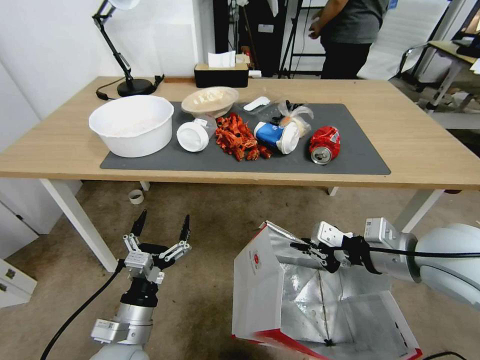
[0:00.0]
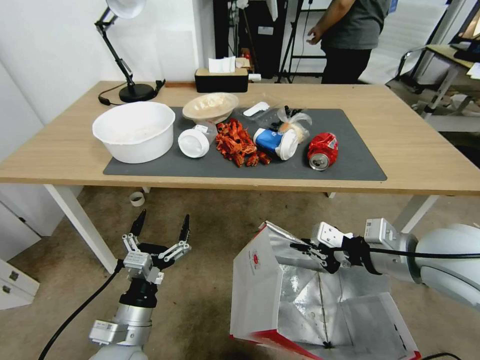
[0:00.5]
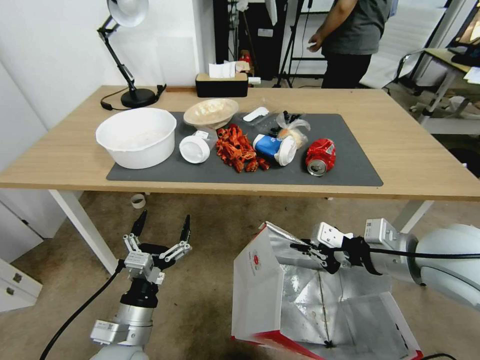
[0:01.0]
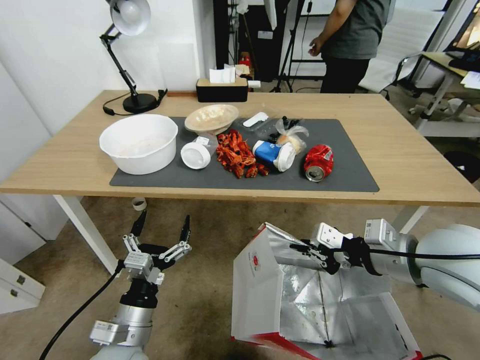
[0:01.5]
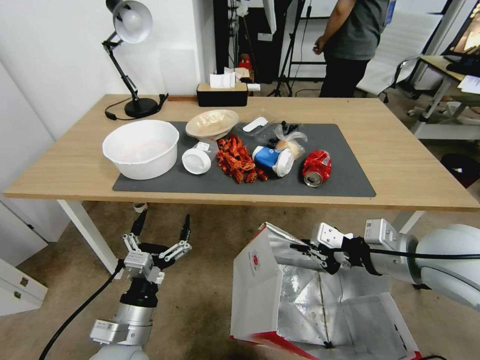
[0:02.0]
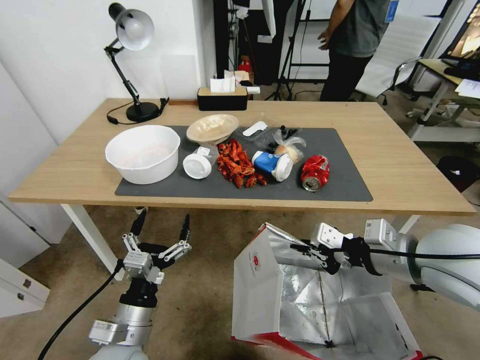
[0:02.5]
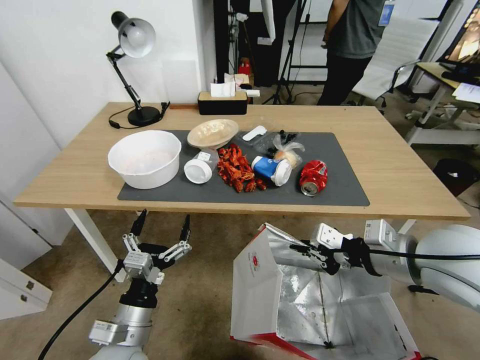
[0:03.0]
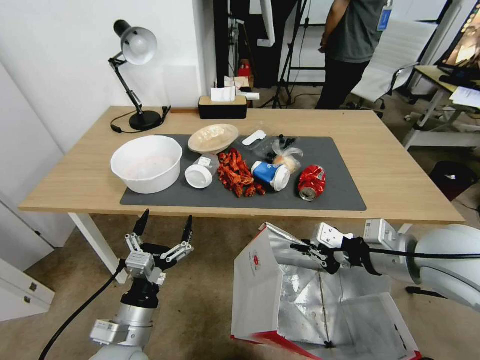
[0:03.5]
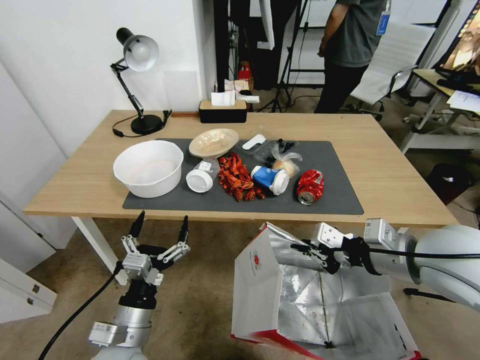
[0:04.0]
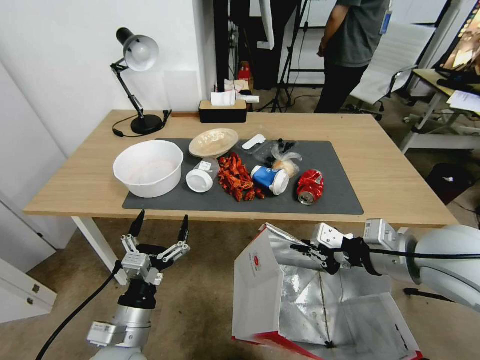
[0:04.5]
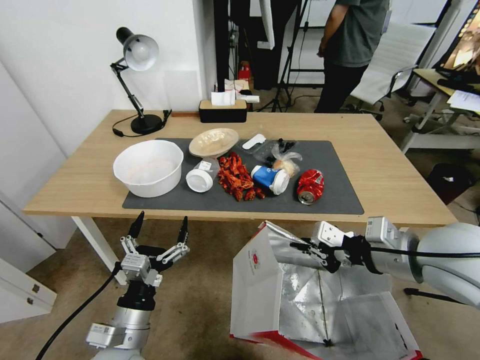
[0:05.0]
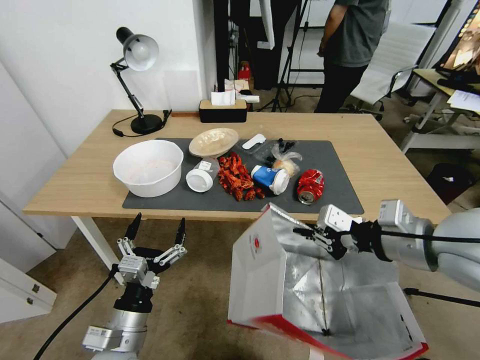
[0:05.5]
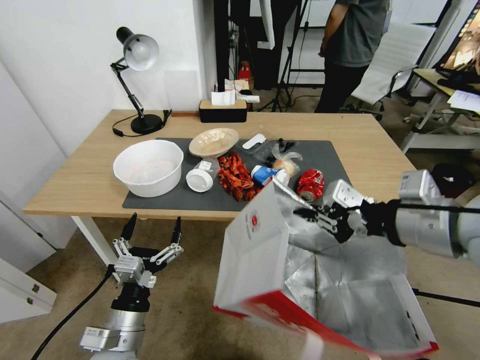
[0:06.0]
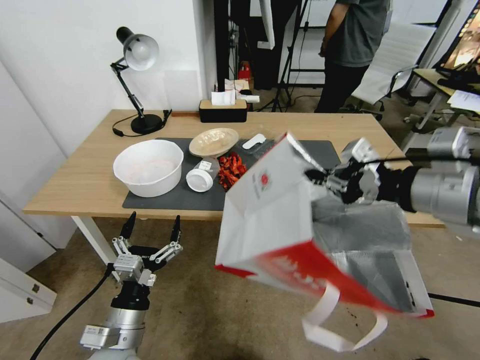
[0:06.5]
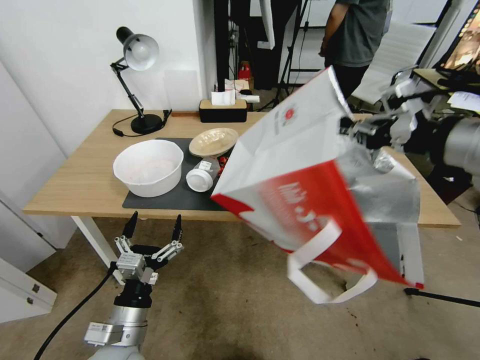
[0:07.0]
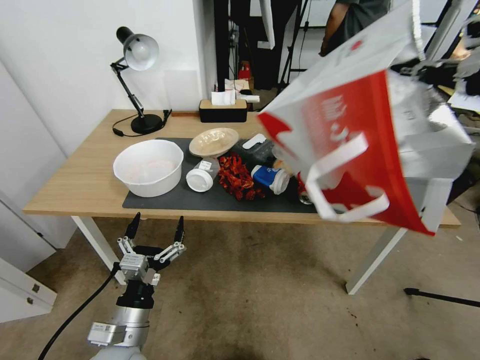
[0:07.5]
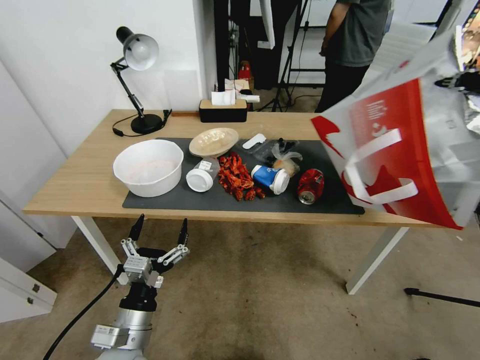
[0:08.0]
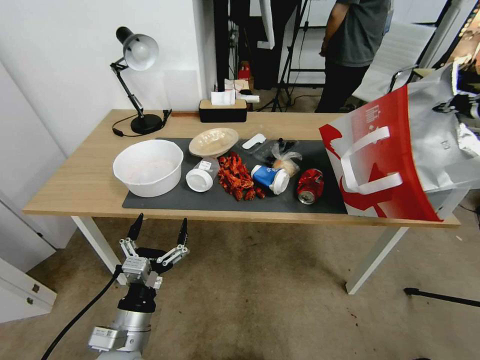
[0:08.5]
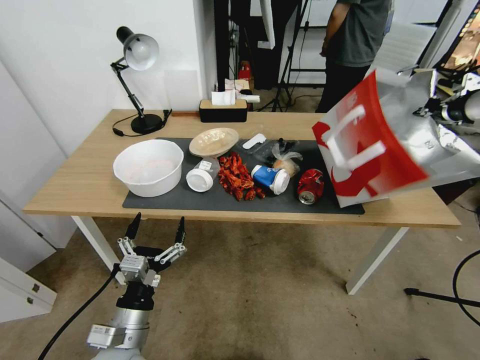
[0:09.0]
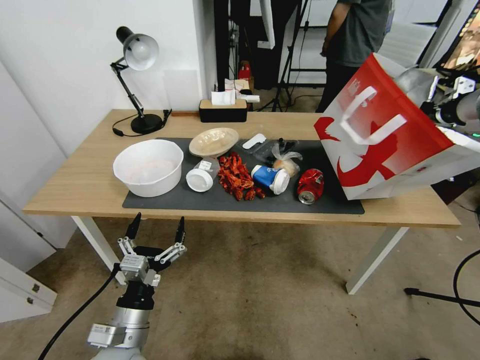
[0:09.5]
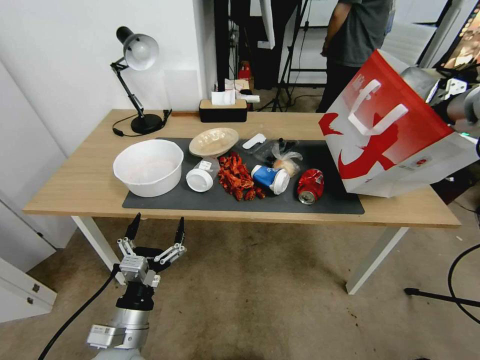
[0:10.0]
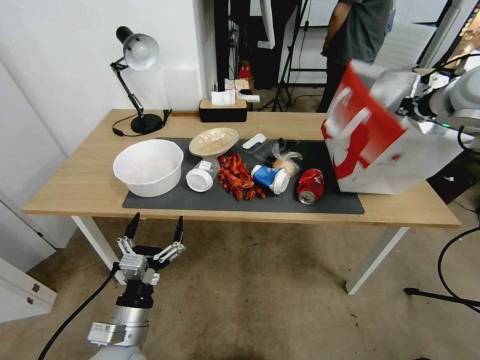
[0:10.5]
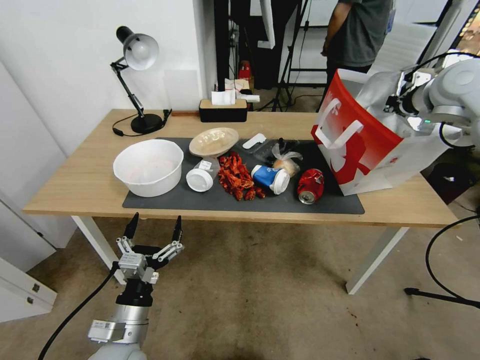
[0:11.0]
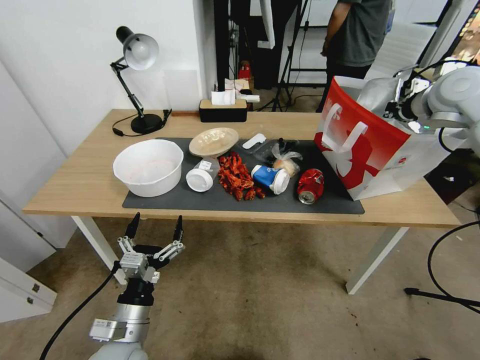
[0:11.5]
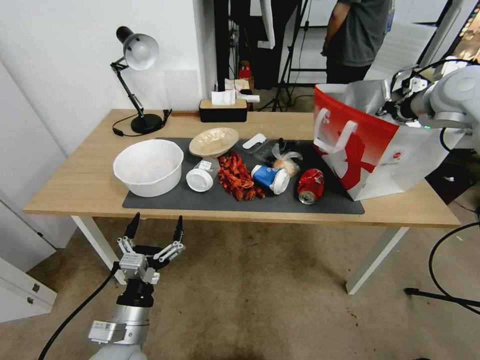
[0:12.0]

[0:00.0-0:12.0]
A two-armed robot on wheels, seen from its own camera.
Task of the whole recording: Pick up the food delivery bag from the floor and place it on the table.
0:04.0 to 0:06.0: The right gripper is displaced upward by roughly 10 cm.
0:06.0 to 0:08.0: The right gripper travels to the right, upward and forward by roughly 20 cm.
0:08.0 to 0:10.0: The right gripper heads forward and downward, covering about 15 cm.
0:10.0 to 0:12.0: The right gripper is displaced forward by some 5 cm.

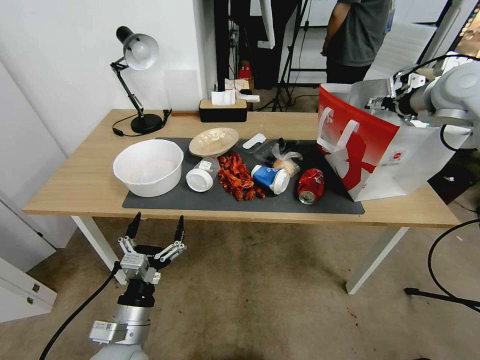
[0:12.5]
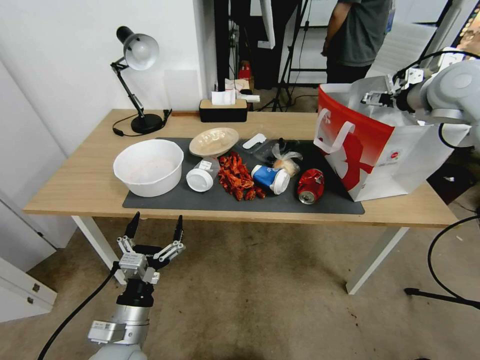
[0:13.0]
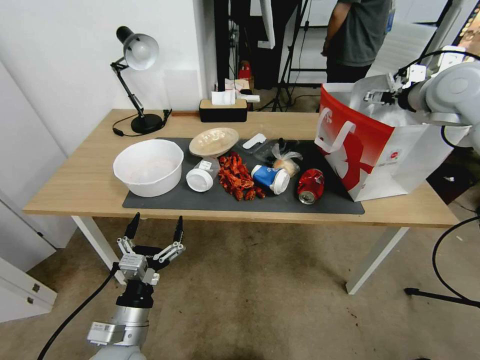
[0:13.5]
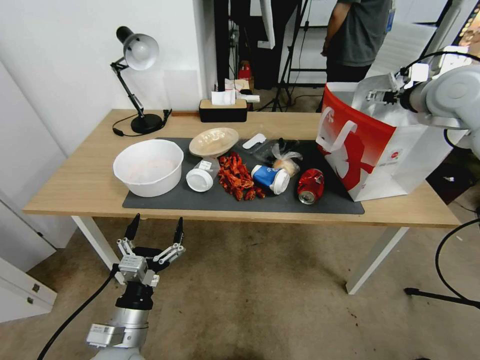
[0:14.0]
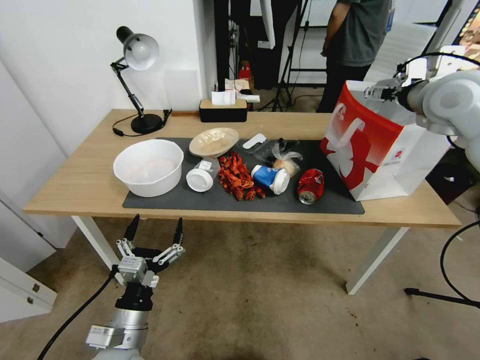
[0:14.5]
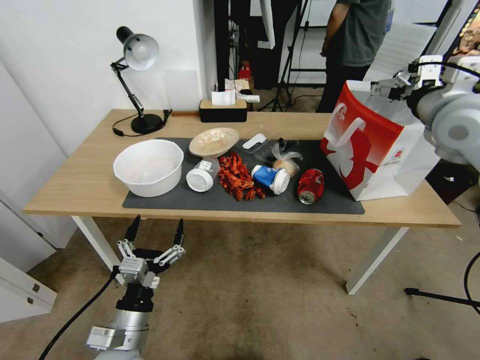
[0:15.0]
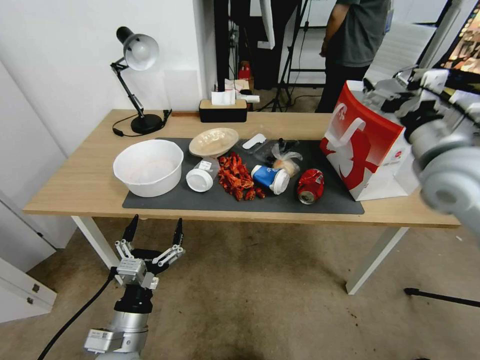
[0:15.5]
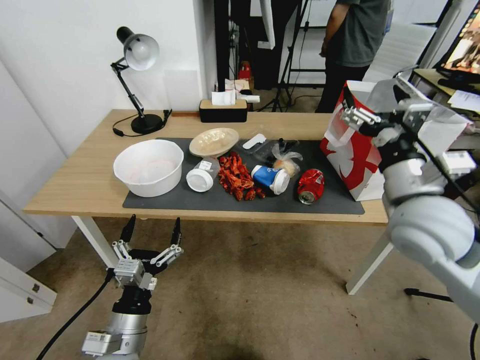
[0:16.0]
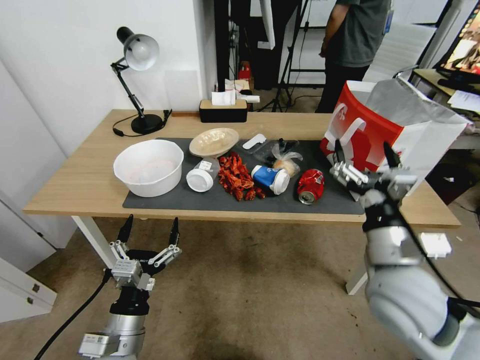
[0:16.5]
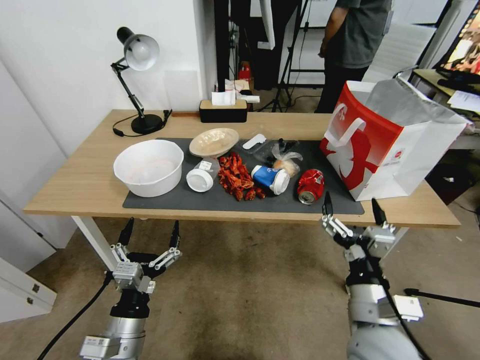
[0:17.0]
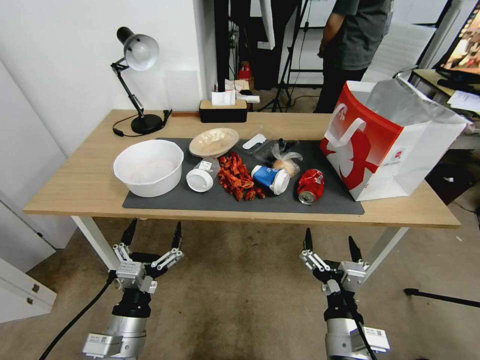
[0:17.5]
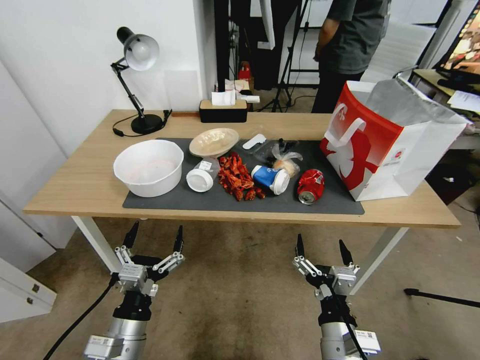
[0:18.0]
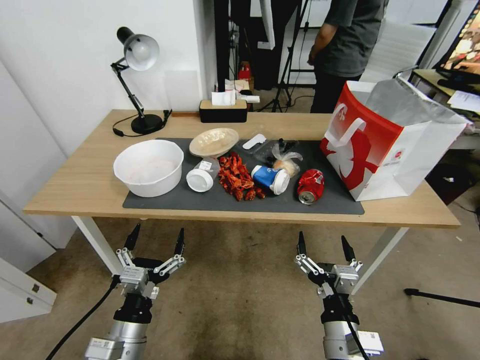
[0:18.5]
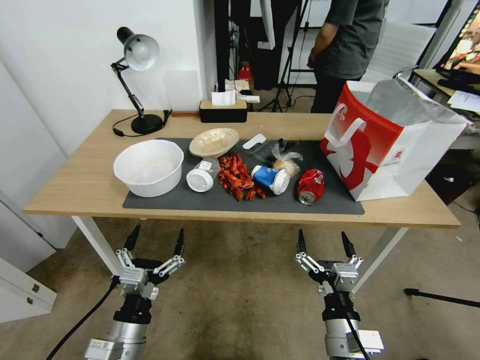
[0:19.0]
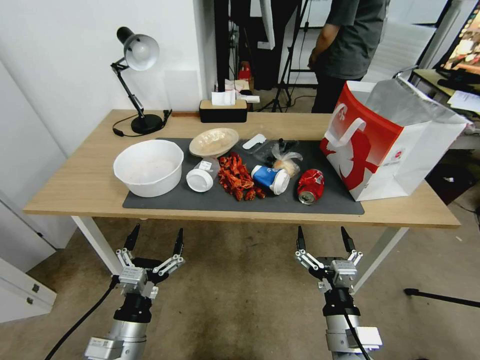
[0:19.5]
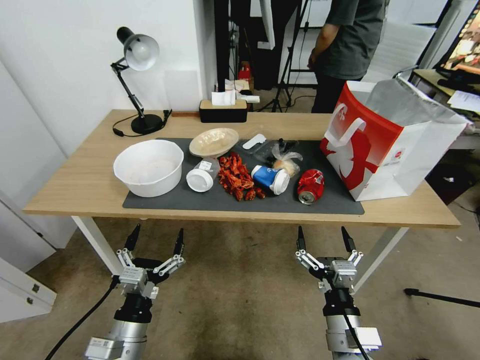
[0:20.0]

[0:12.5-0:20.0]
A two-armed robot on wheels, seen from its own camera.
Task of the whole recording: Pick up the food delivery bag from the floor and place it on the table.
0:12.5 to 0:14.5: The right gripper ends up roughly 5 cm from where it was.
0:14.5 to 0:16.5: The right gripper moves backward, downward and to the left, approximately 35 cm.
0:16.5 to 0:18.0: The right gripper is displaced downward, backward and to the left by approximately 20 cm.
0:18.0 to 0:20.0: The grippers stay close to where they were, moving slightly.

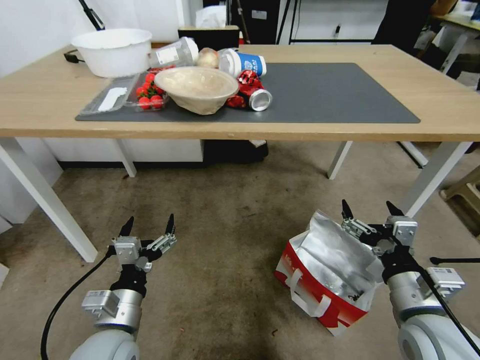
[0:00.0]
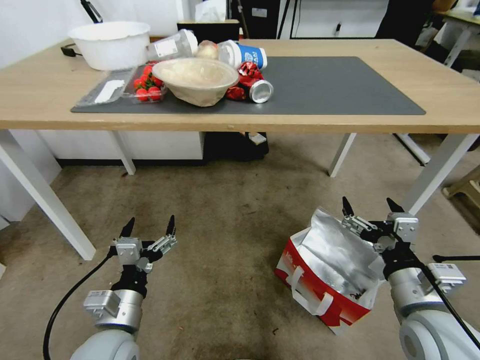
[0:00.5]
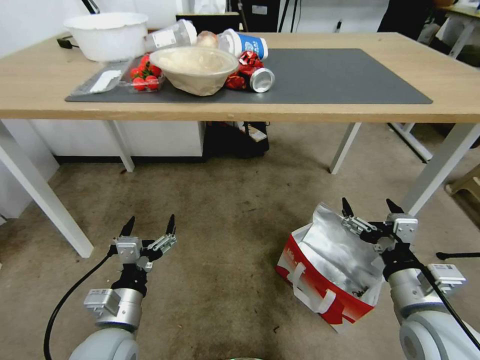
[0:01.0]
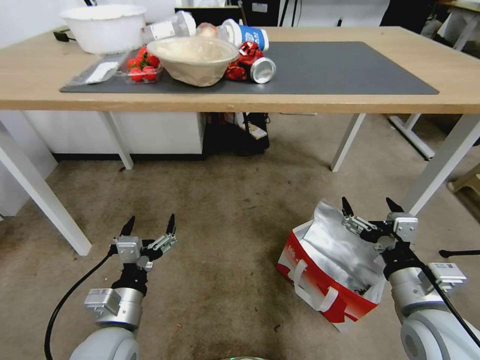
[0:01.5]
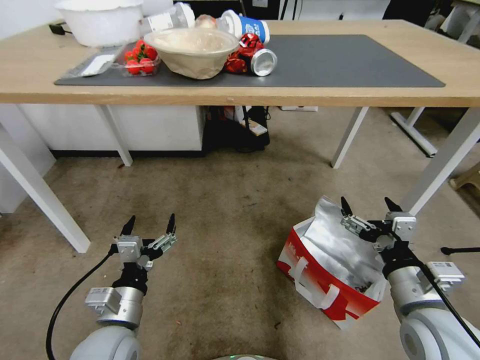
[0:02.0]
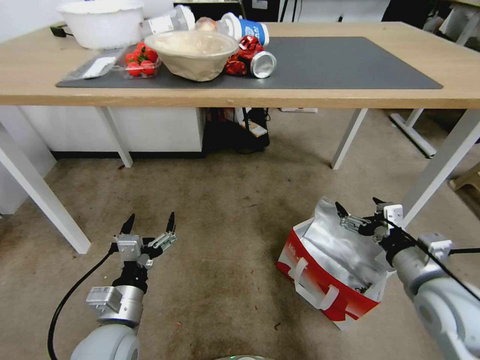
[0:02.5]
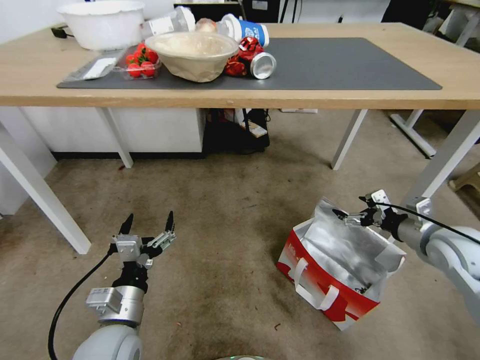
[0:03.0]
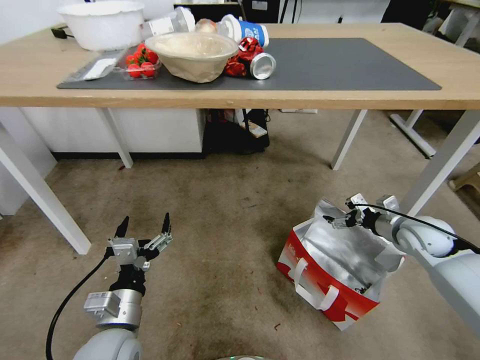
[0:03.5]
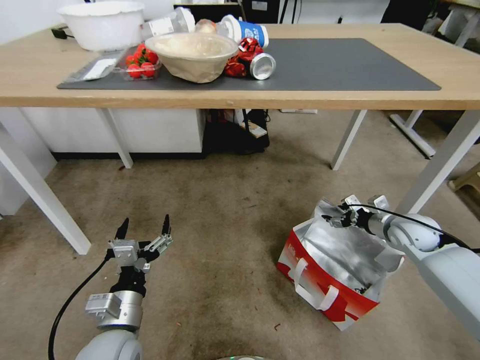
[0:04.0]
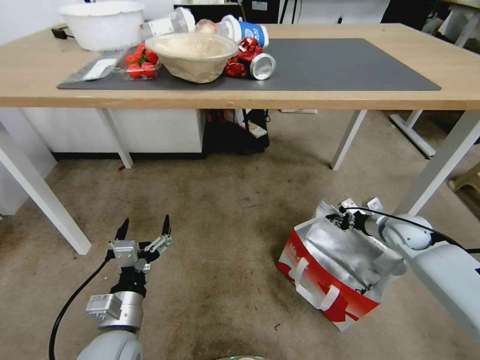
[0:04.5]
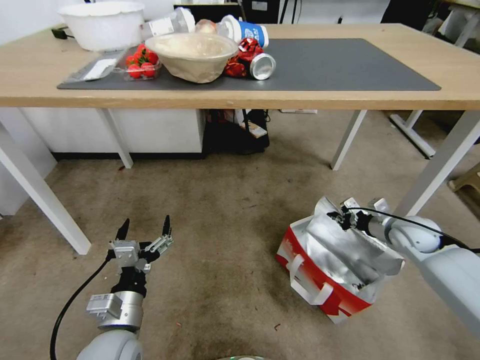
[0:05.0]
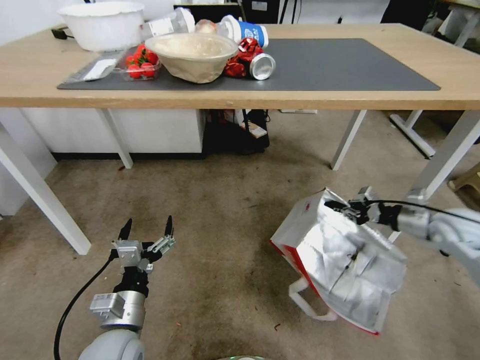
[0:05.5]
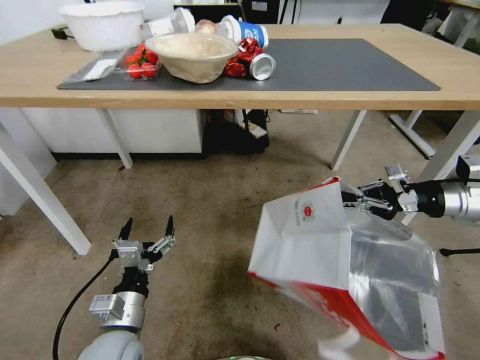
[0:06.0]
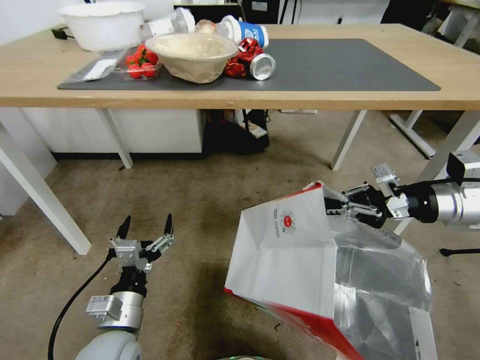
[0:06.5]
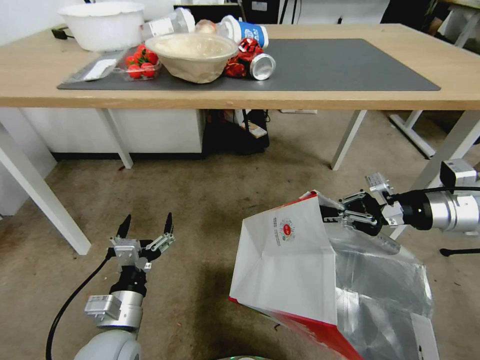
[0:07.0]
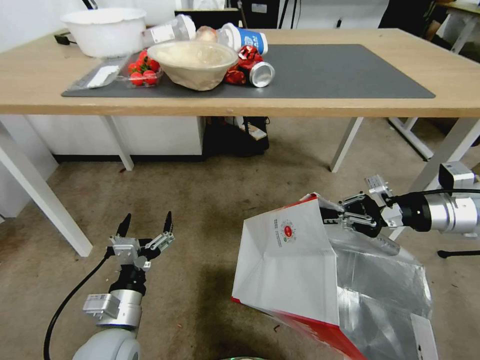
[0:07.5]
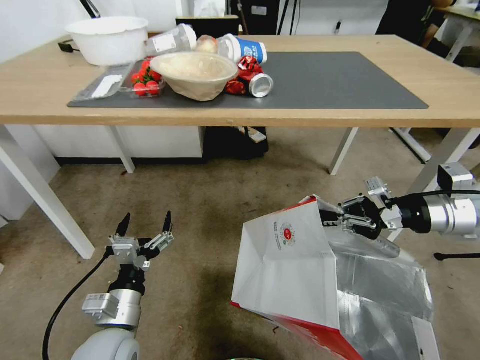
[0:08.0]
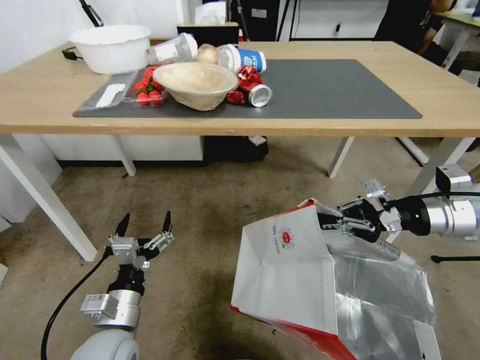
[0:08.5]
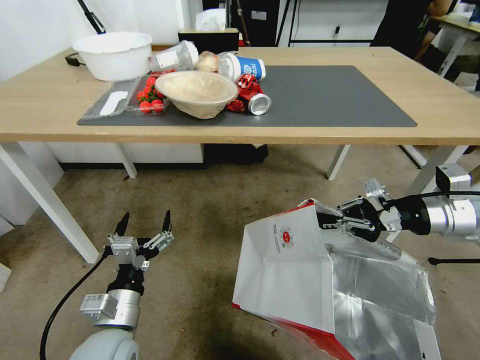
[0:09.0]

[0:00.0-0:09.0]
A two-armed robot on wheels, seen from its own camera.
Task of the whole recording: Pick up the food delivery bag from the floor and place it on the table.
0:02.0 to 0:04.5: The right gripper is displaced forward and to the right by roughly 25 cm, and closes.
0:04.5 to 0:07.0: The right gripper heads upward, covering about 20 cm.
